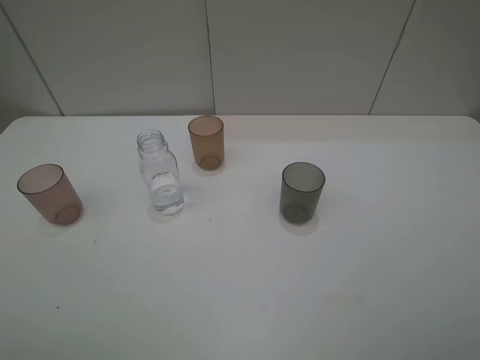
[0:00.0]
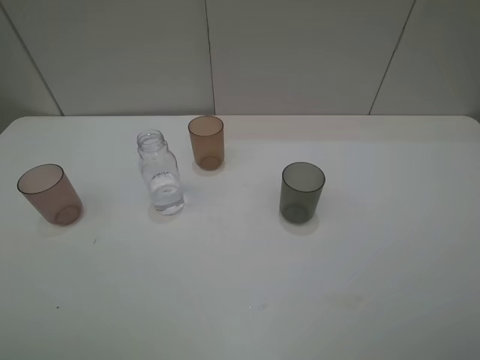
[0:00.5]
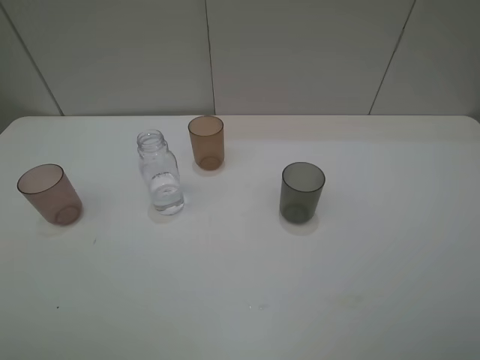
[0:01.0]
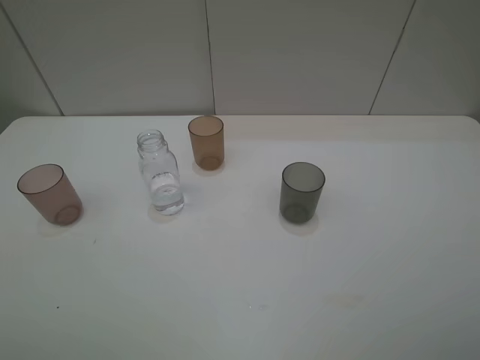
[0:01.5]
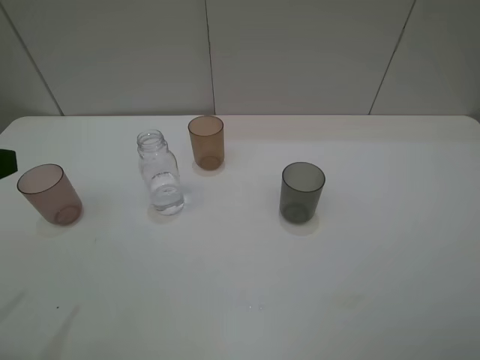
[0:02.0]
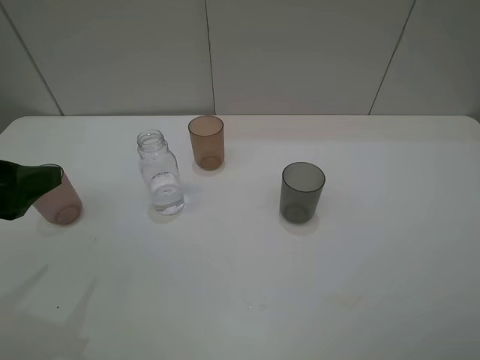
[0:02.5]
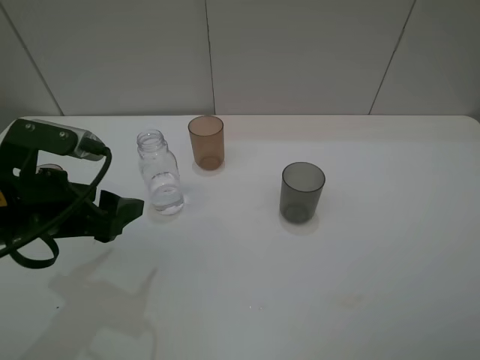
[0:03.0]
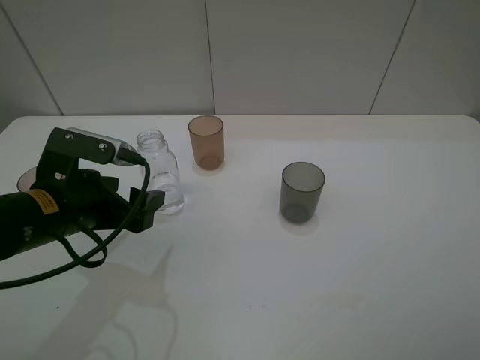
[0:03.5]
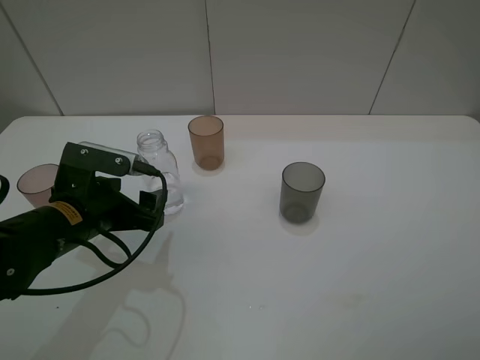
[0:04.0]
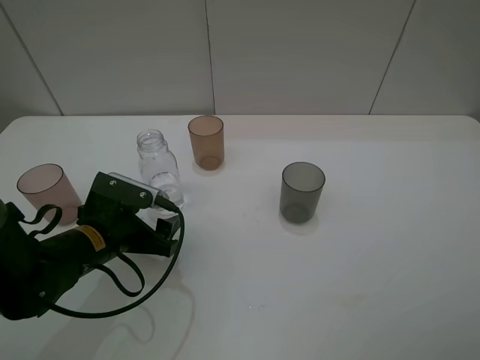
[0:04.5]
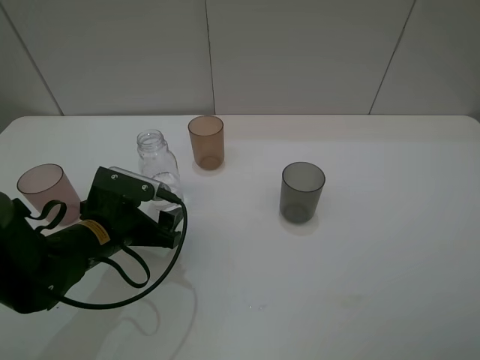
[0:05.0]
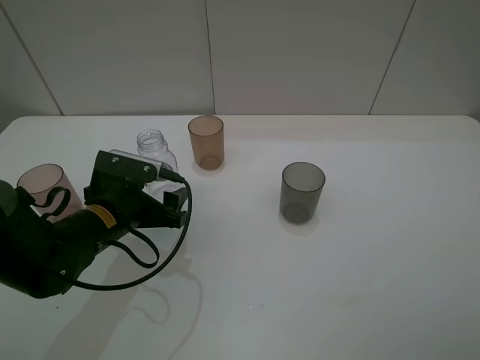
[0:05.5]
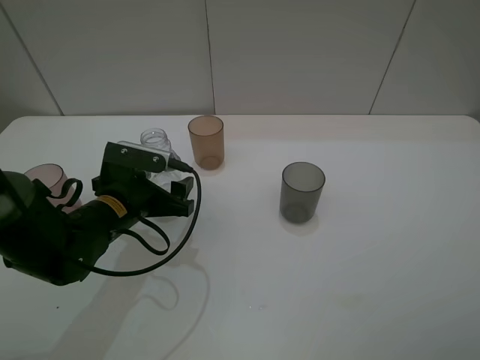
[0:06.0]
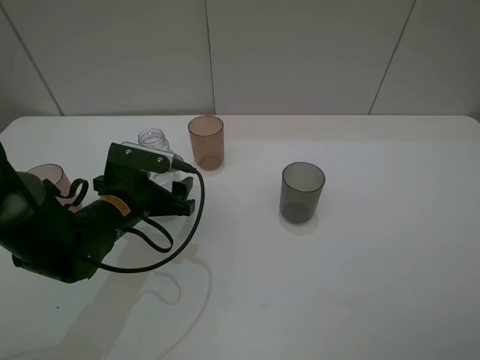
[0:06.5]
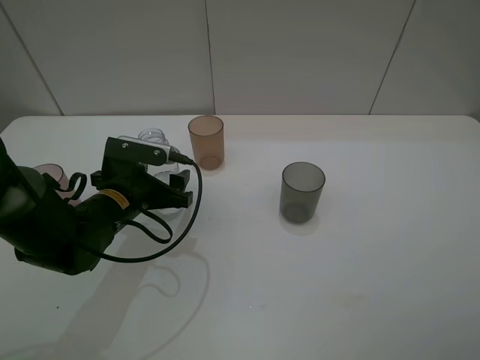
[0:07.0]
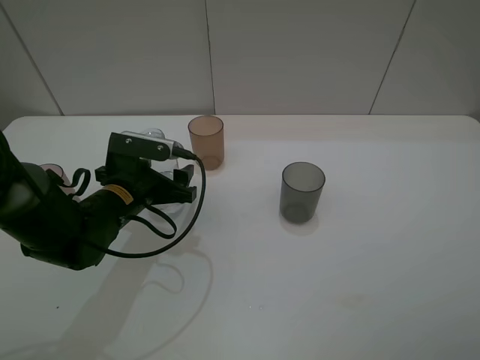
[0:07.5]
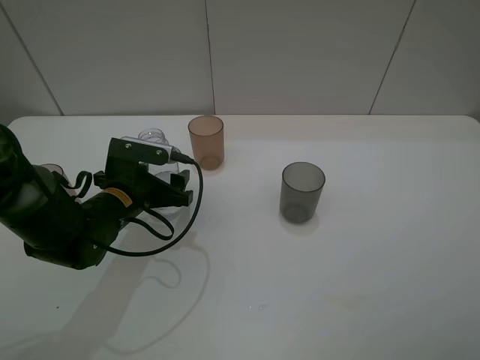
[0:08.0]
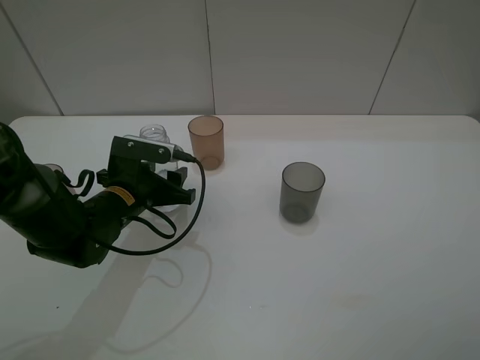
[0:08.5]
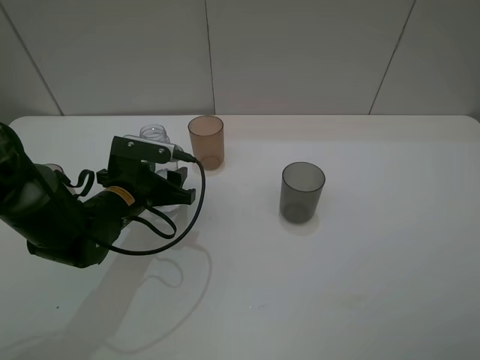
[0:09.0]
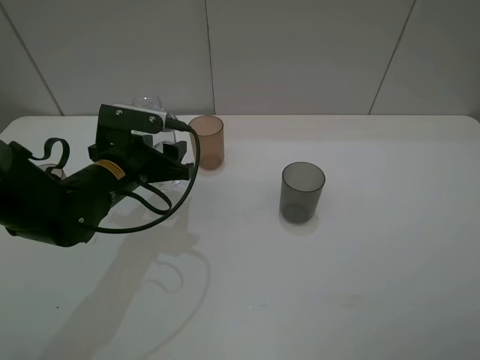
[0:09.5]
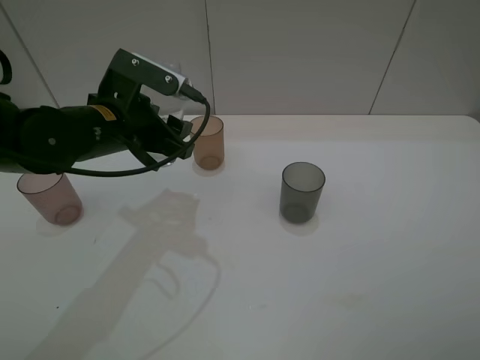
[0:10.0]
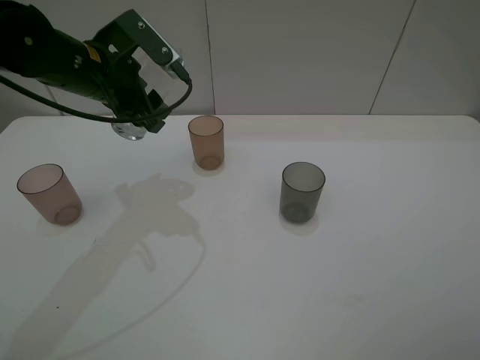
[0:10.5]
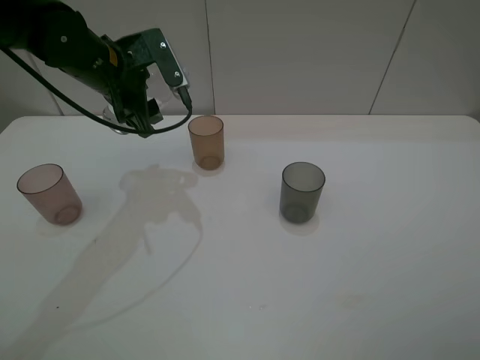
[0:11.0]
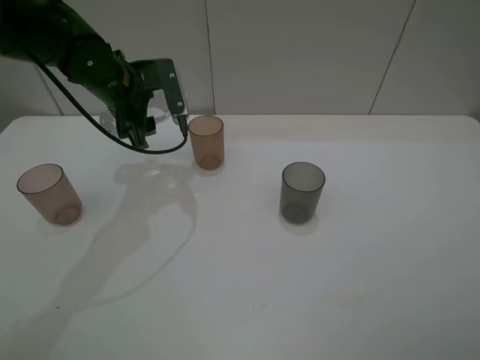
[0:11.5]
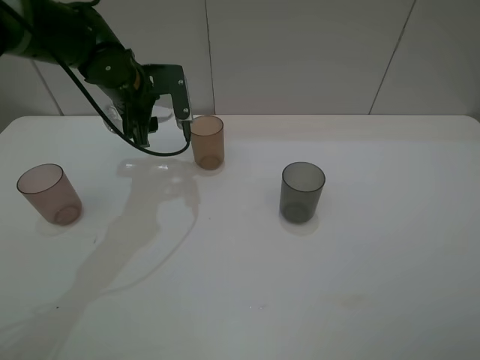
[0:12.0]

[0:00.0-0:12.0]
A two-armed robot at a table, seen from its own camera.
Task of the whole recording: pick up the bottle filled with water and pour water into the middle cup of the three cups.
Step, 0:00.0 to 0:06.0: Grasp the transparent bottle with the left gripper.
0:02.0 to 0:04.0: The left gripper heads downward, to the right and forward, covering some 20 cm.
0:04.0 to 0:06.0: The left gripper changes place by approximately 5 cm.
0:06.0 to 0:08.0: The grippers move only a little.
0:08.0 to 0:10.0: The left gripper moves upward, some 10 cm, and closes up.
0:10.0 to 0:12.0: The left gripper heads forward, covering some 10 cm.

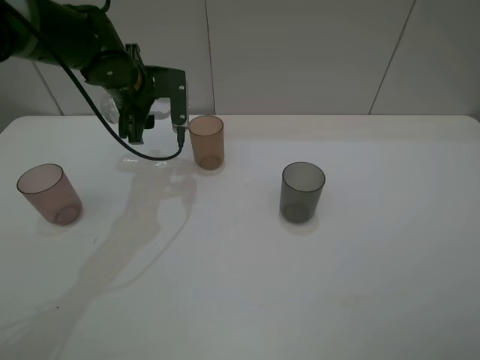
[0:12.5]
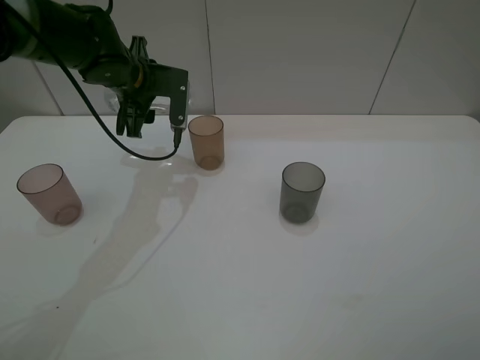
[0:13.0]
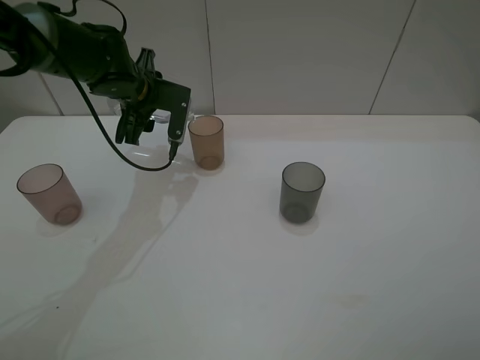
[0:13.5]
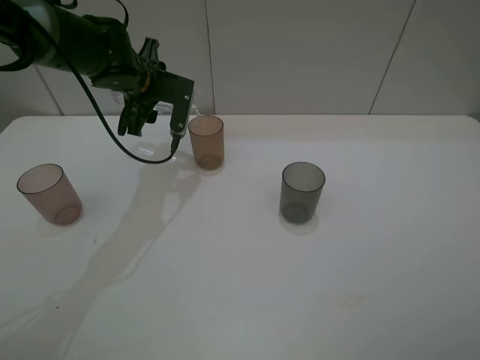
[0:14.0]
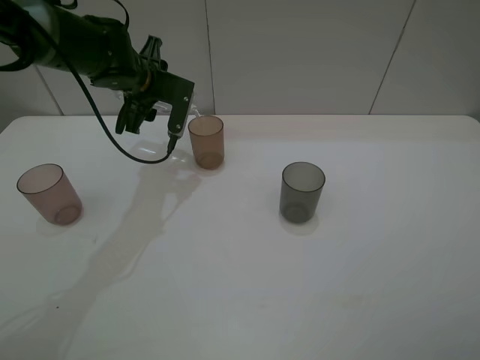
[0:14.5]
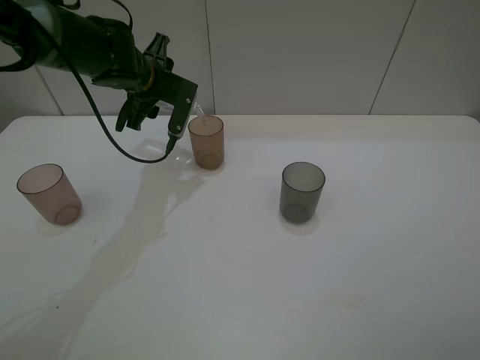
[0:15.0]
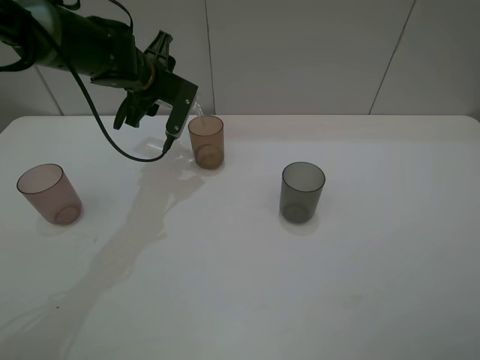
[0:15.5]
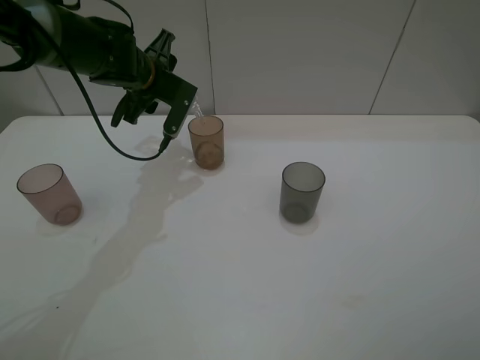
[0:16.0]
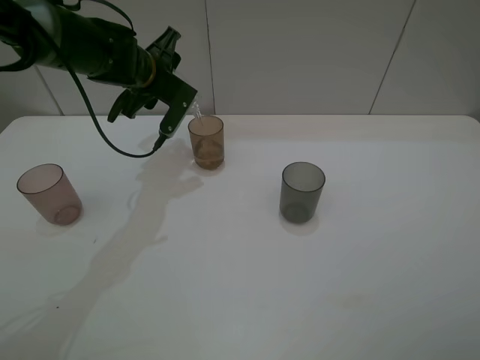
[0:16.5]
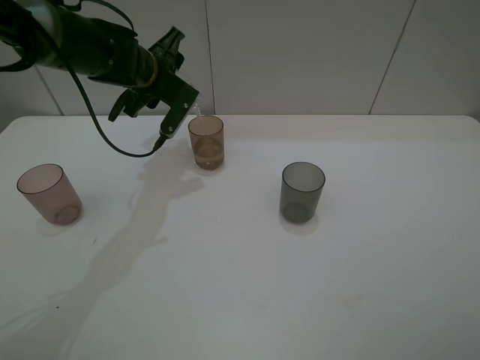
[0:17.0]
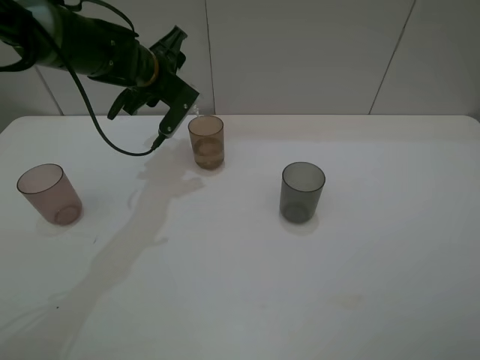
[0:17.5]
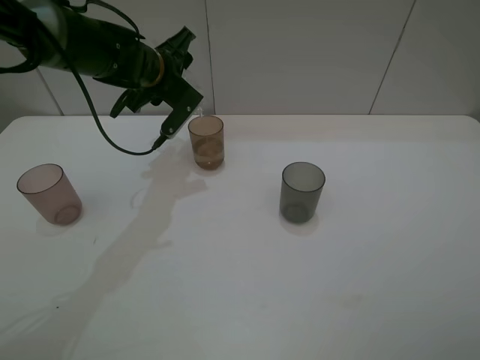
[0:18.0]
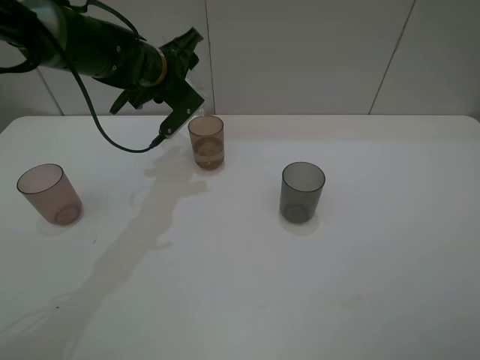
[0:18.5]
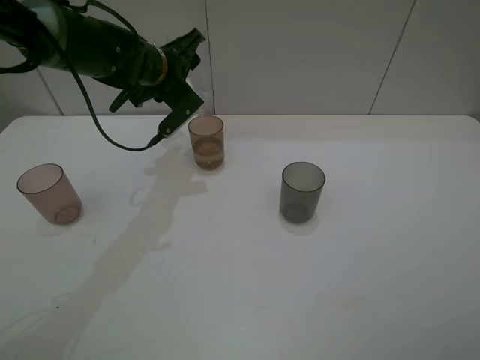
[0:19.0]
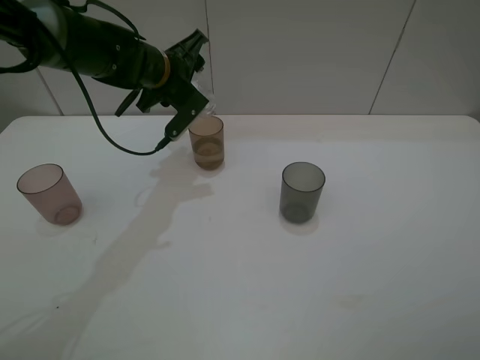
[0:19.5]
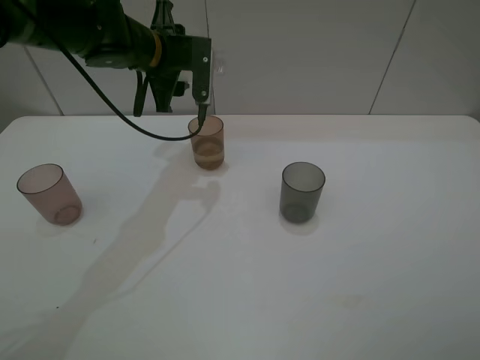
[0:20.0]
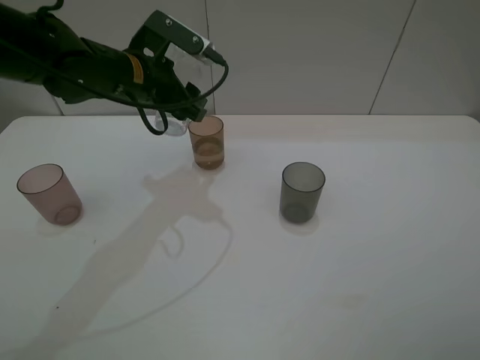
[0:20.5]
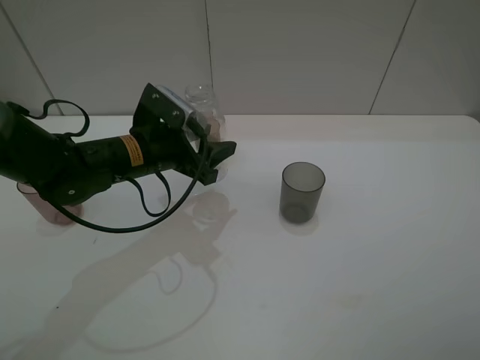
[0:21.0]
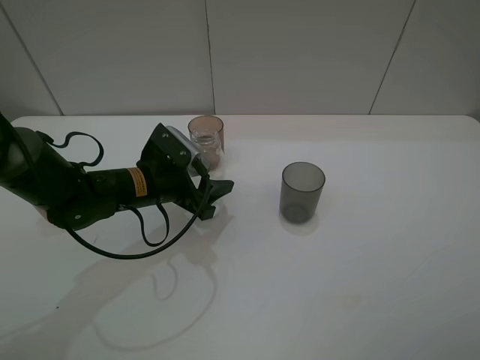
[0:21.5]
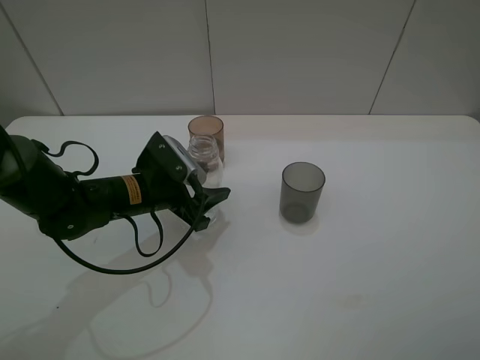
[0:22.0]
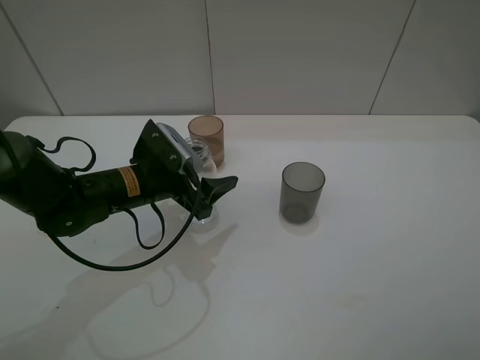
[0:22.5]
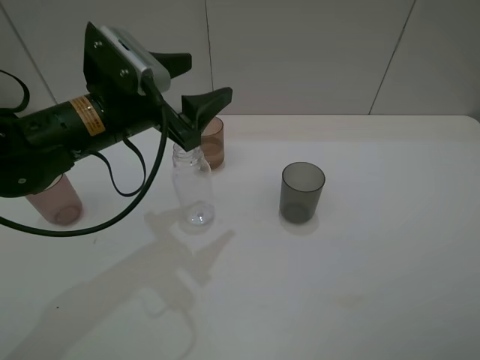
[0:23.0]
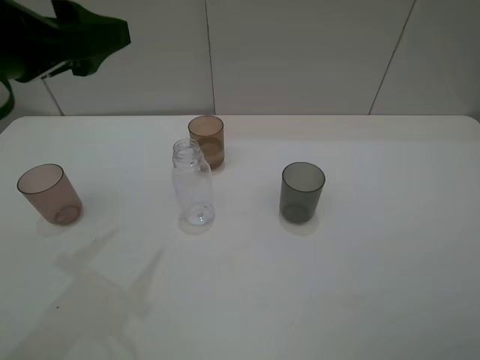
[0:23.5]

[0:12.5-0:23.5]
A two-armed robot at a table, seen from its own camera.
Task of the whole recording: pick up the bottle filled with water and pour water into the middle cup of the three cups.
Step, 0:13.5 to 0:22.5: Place the transparent bottle with the left gripper.
0:14.5 to 0:16.0: The grippers move only a little.
0:16.0 to 0:18.0: There are only small adjustments of the grippers.
0:20.0 to 0:21.5: The left gripper moves downward and backward, roughly 20 cm.
0:21.5 to 0:23.5: The left gripper moves upward, about 25 cm, and opens.

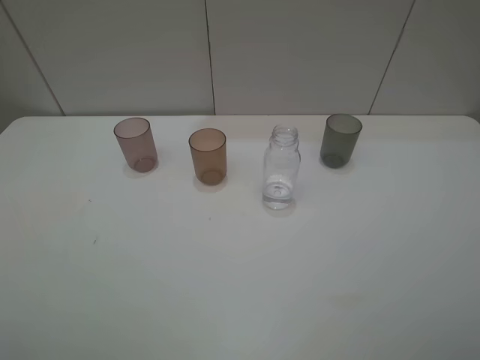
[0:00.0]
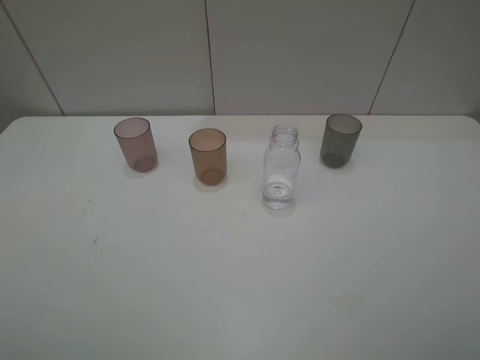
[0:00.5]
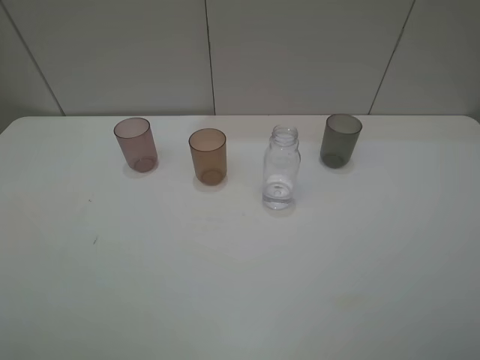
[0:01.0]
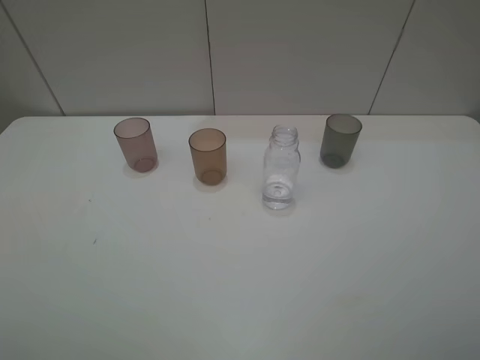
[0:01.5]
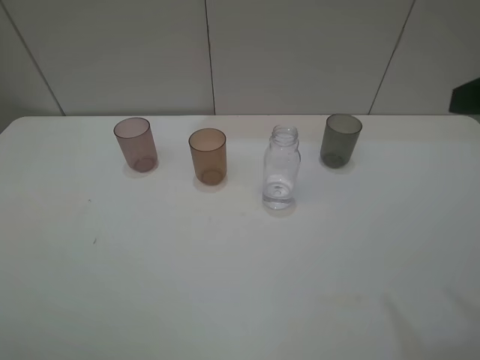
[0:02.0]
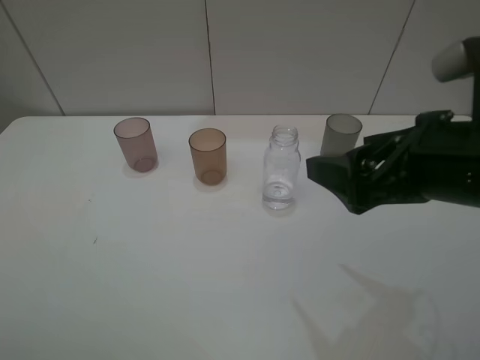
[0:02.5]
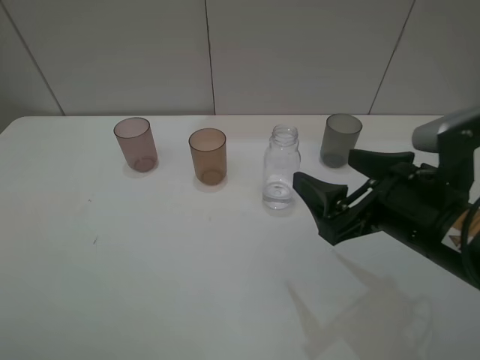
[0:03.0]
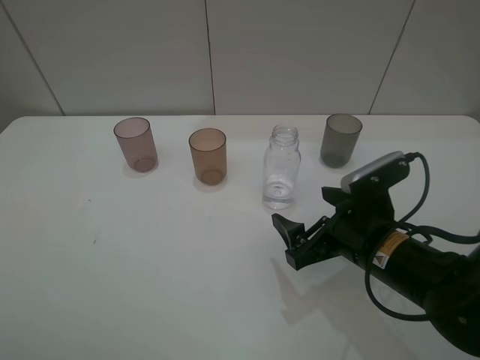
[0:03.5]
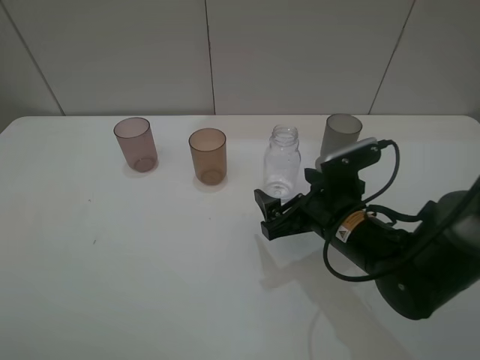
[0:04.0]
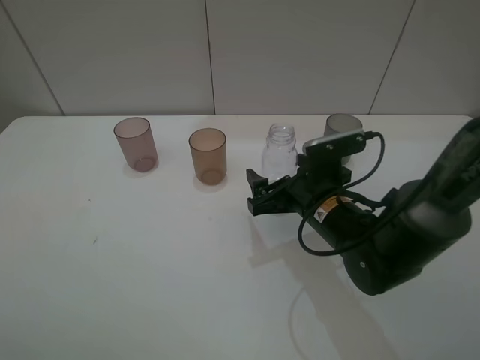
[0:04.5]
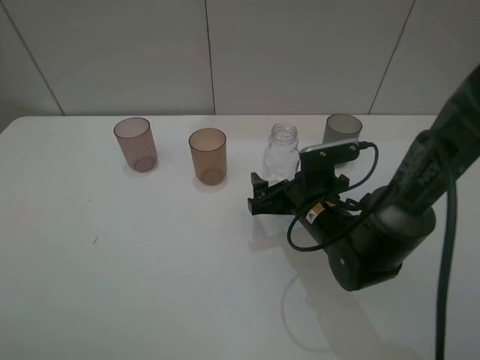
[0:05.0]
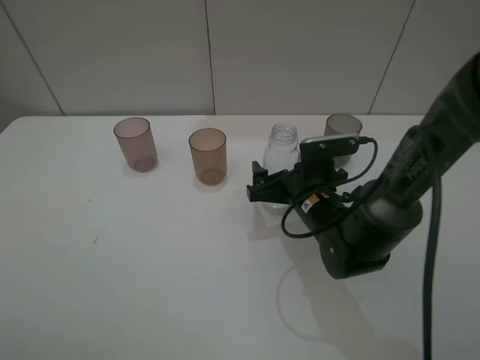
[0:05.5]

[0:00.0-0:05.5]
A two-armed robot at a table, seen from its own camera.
Task of the whole recording: pick up the bottle filled with water and pour water into the middle cup of the three cups.
0:02.0 to 0:03.5: The right gripper is displaced downward and to the left by some 25 cm.
0:03.5 to 0:05.5: The right gripper heads forward, covering roughly 10 cm.
